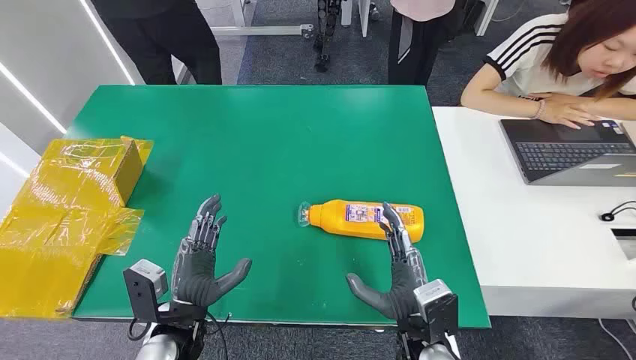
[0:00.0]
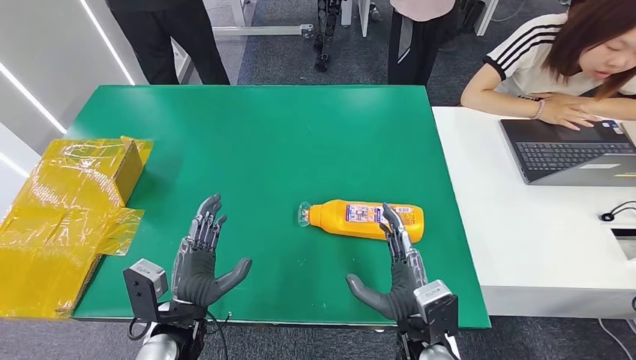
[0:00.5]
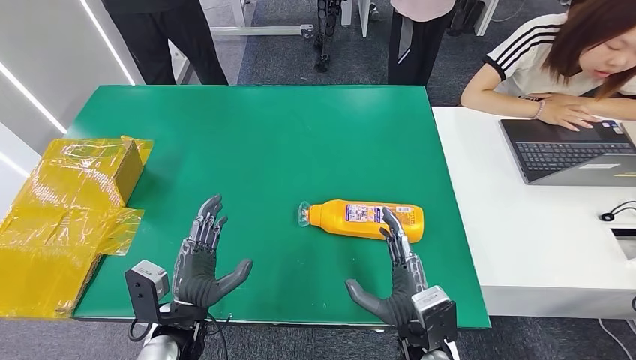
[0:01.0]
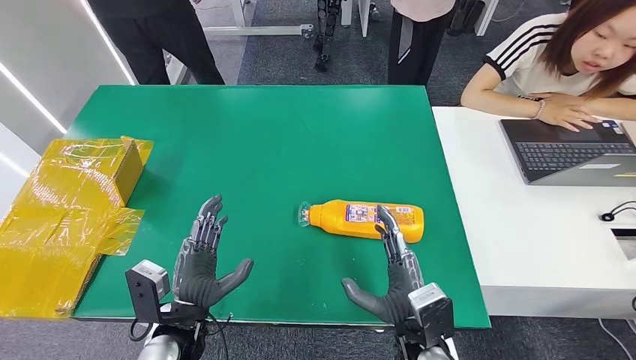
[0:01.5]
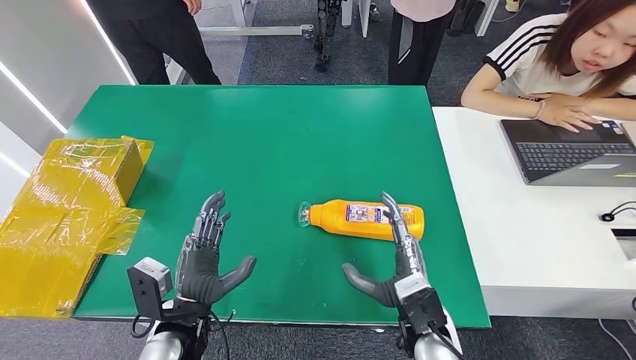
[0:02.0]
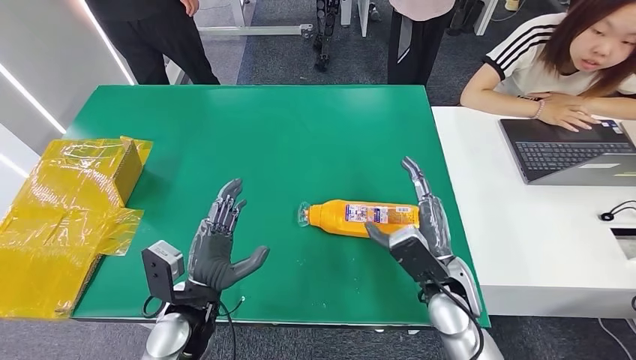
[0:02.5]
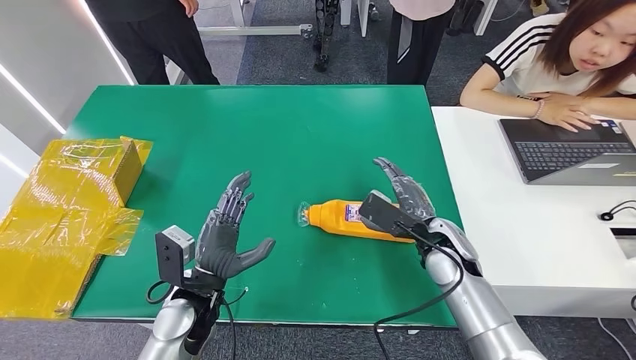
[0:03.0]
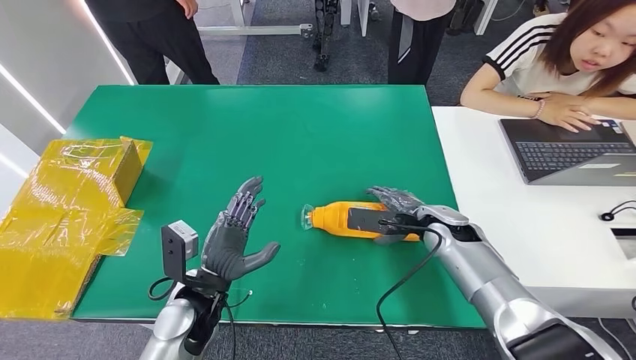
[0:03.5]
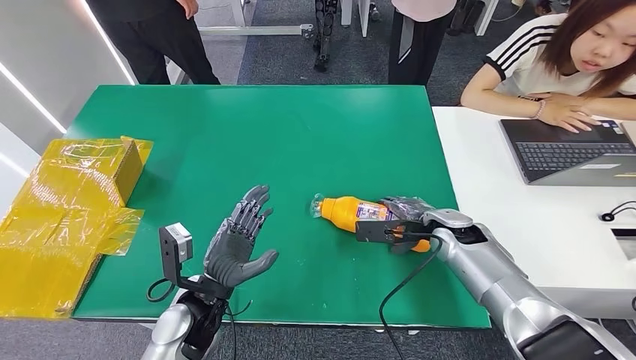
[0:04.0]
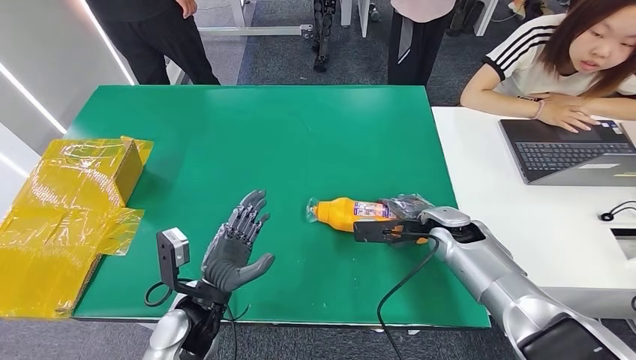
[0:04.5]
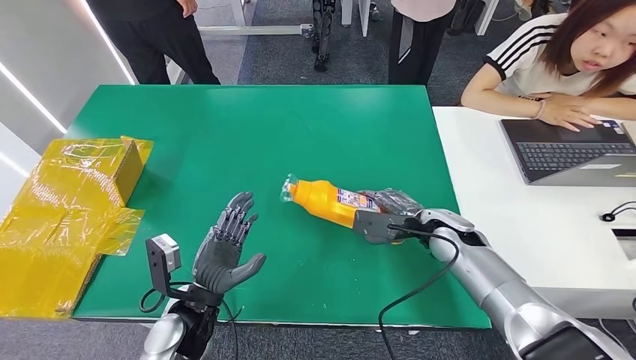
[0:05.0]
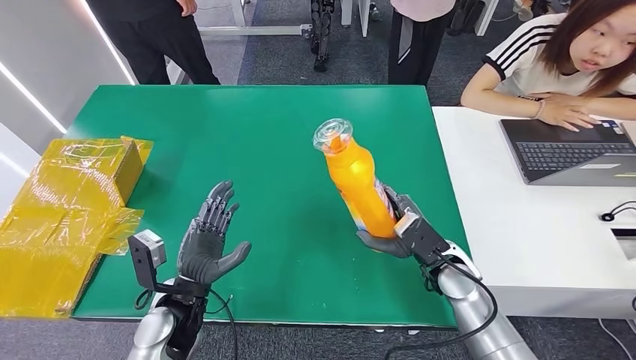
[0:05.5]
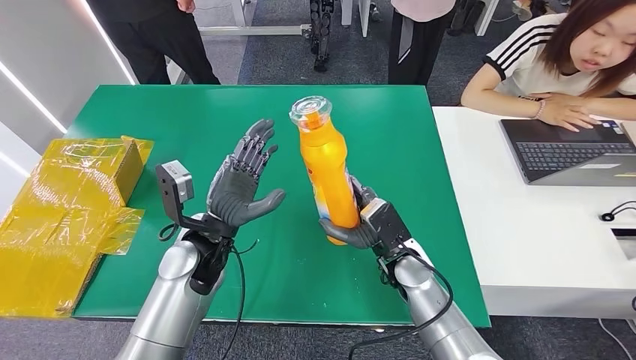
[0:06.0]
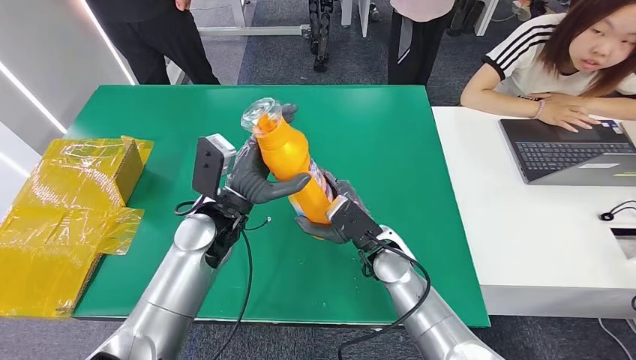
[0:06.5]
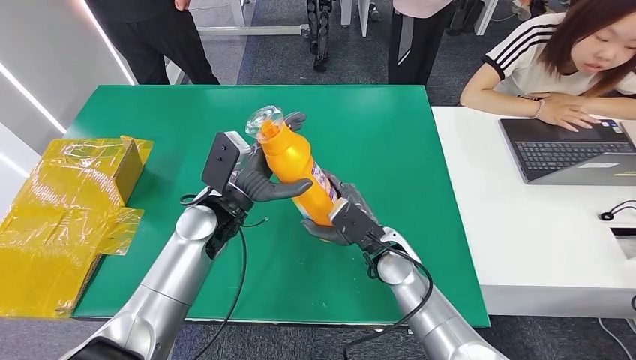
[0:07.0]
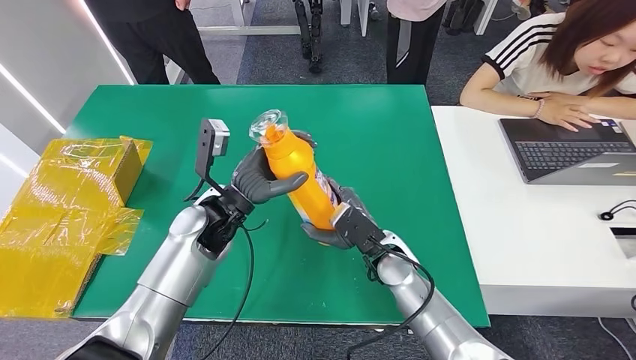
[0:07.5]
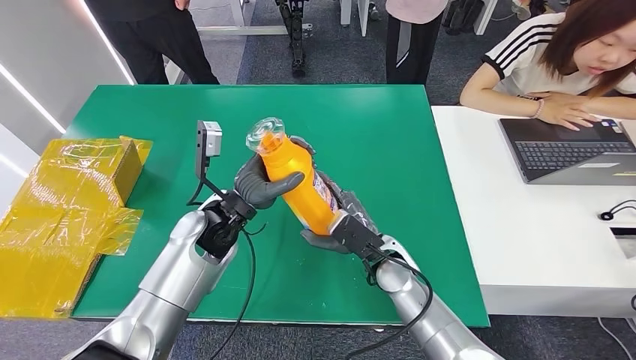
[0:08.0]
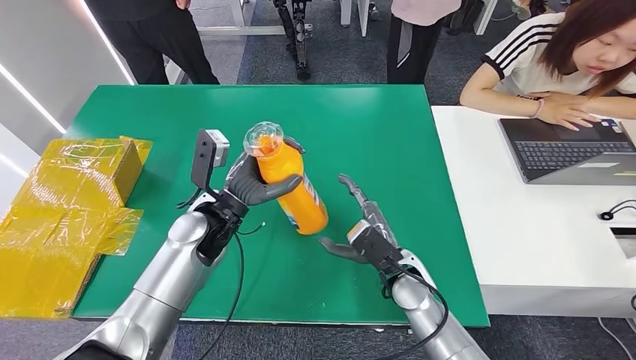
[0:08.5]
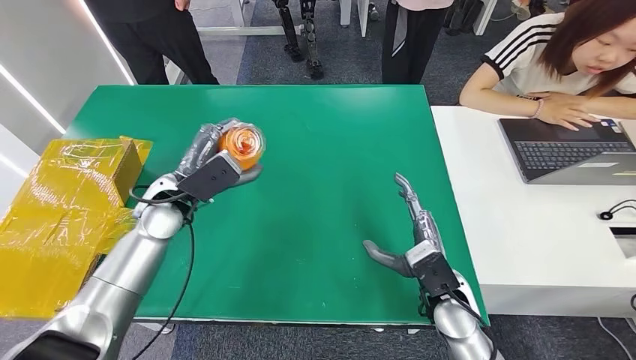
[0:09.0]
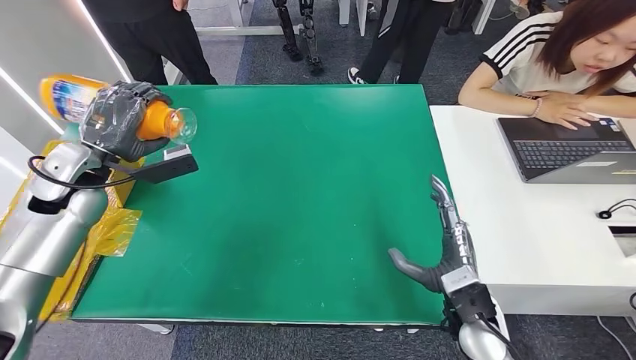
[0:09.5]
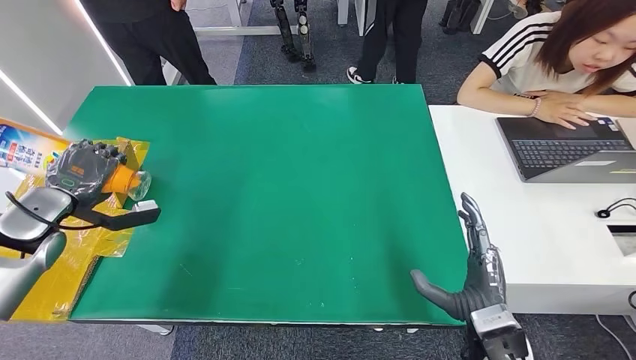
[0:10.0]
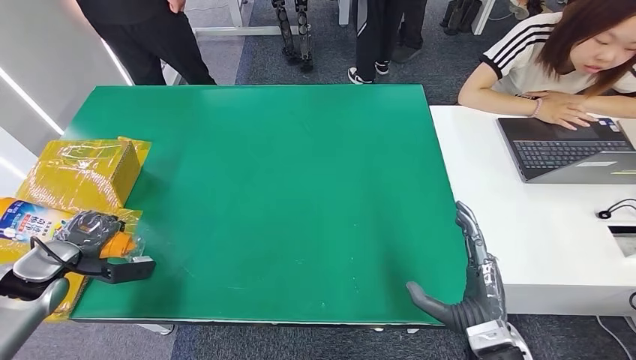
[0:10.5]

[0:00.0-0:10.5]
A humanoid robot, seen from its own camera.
Step, 0:00.0 to 0:06.0: Pick up the bottle from the table.
0:02.0 to 0:04.0: The right hand goes roughly 20 cm forward and to the right.
0:06.5 to 0:08.5: The right hand shifts by some 5 cm.

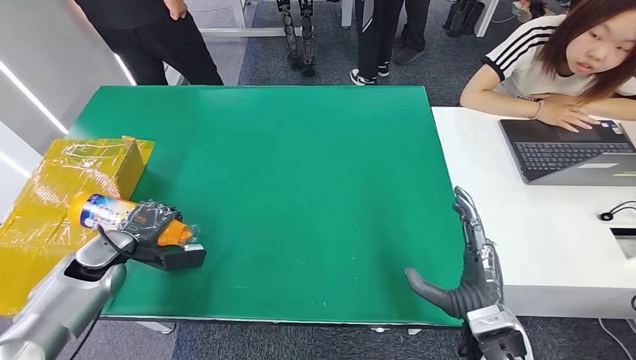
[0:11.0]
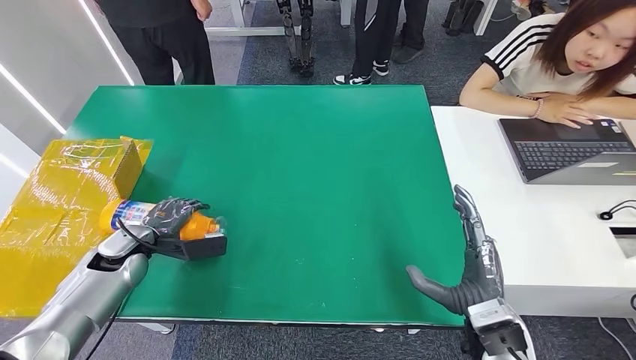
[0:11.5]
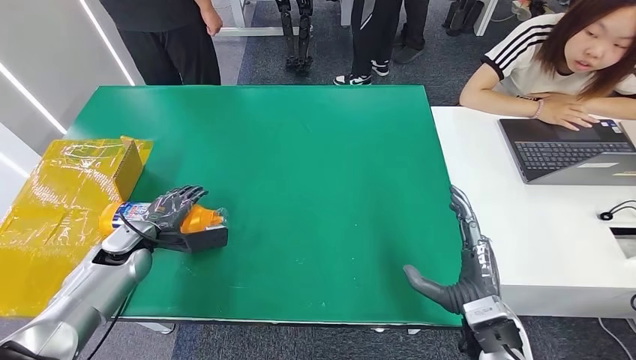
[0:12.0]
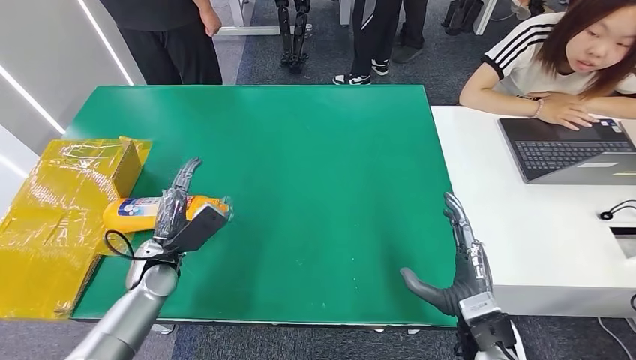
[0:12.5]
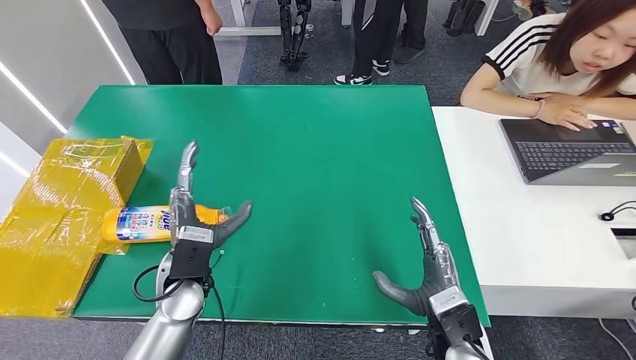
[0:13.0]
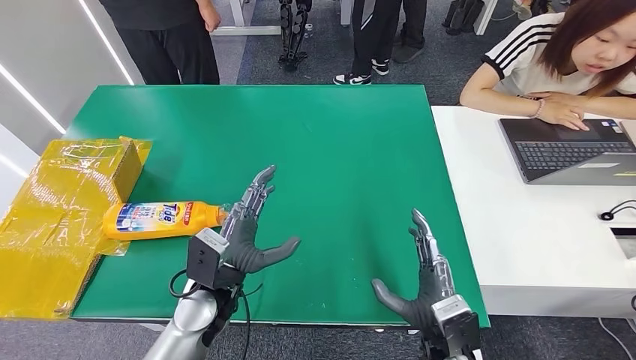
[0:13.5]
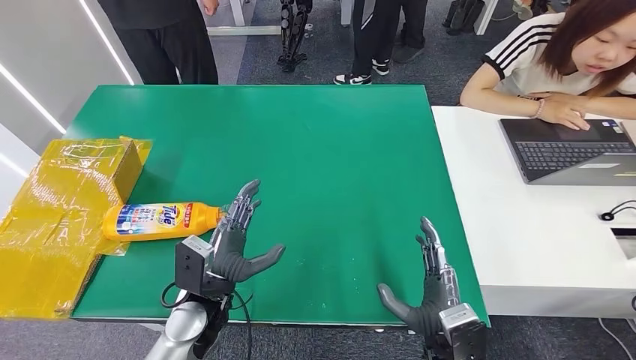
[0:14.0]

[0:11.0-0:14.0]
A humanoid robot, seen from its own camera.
Step, 0:11.0 to 0:14.0: Turn the bottle to the front side.
0:11.0 to 0:12.5: The left hand moves to the right, about 10 cm.
0:12.5 to 0:14.0: The right hand travels to the left by approximately 5 cm. The left hand moves to the right and backward, about 15 cm.
